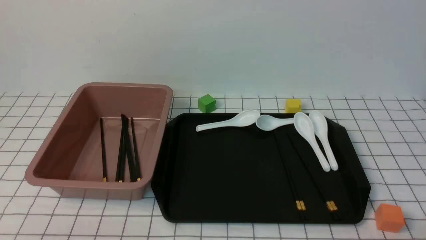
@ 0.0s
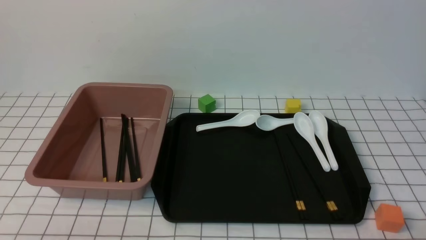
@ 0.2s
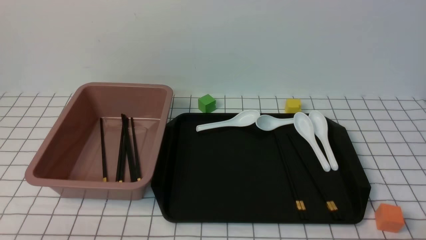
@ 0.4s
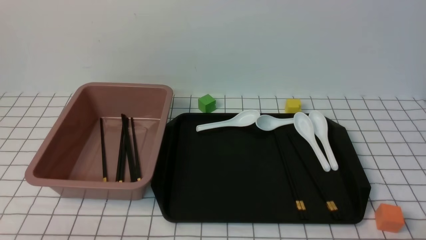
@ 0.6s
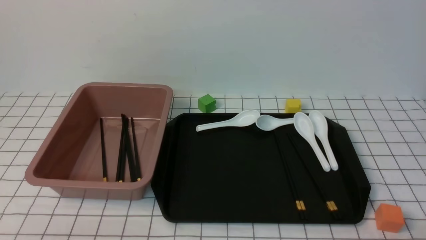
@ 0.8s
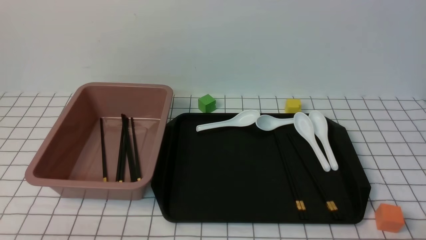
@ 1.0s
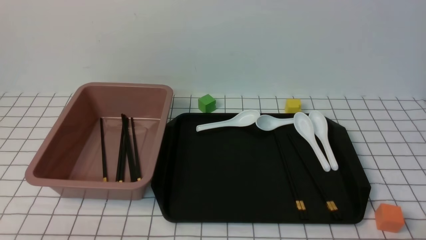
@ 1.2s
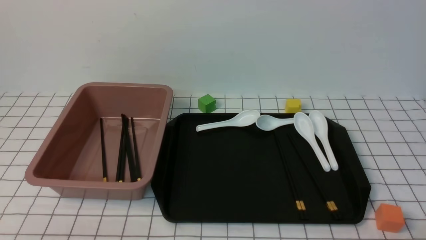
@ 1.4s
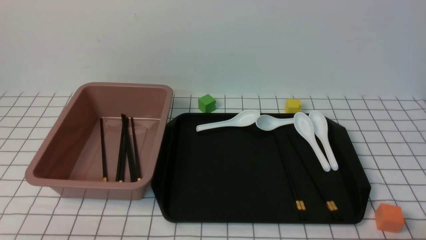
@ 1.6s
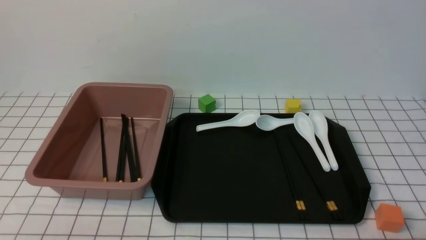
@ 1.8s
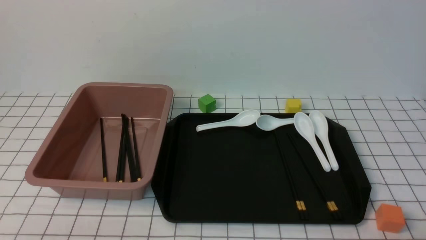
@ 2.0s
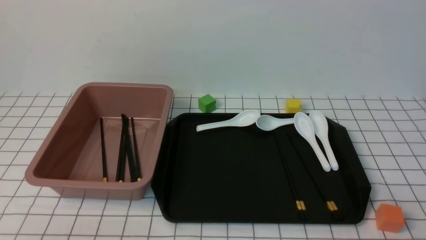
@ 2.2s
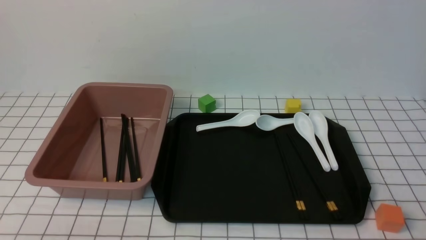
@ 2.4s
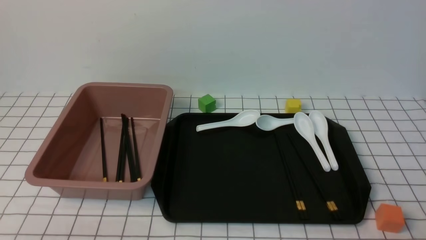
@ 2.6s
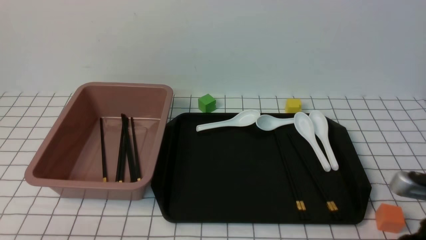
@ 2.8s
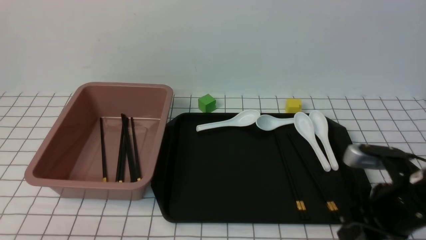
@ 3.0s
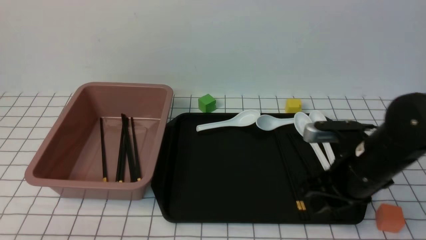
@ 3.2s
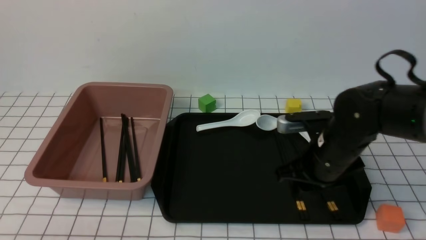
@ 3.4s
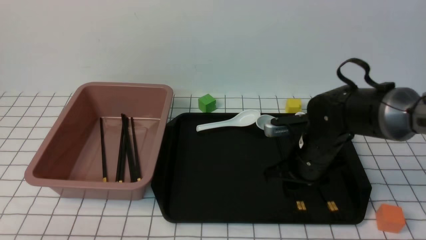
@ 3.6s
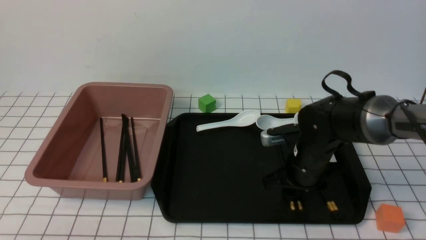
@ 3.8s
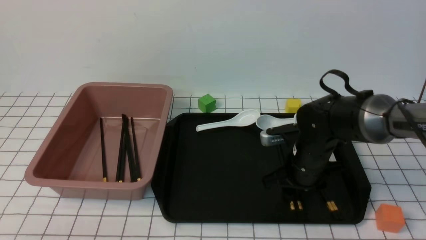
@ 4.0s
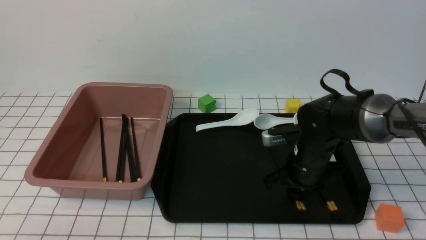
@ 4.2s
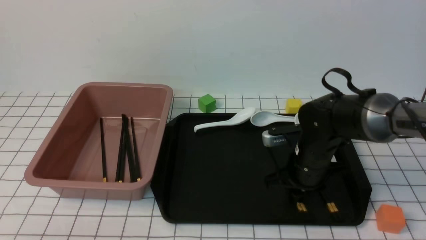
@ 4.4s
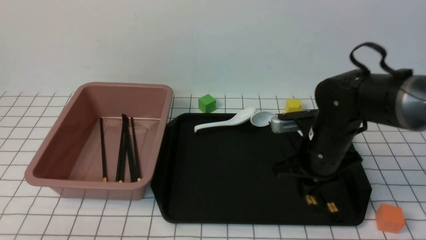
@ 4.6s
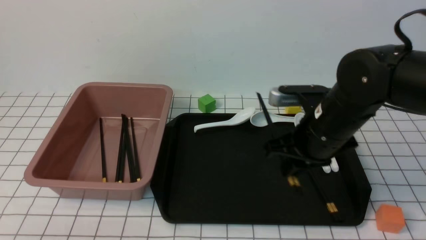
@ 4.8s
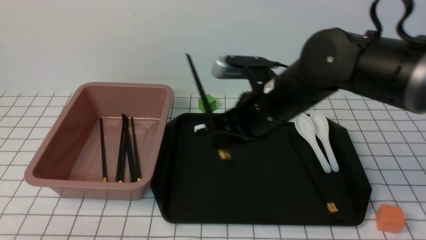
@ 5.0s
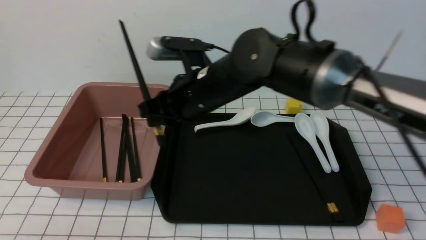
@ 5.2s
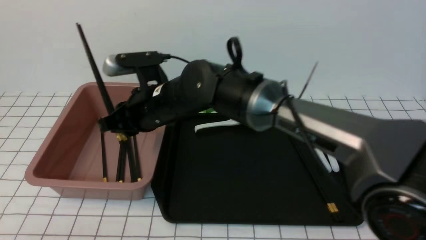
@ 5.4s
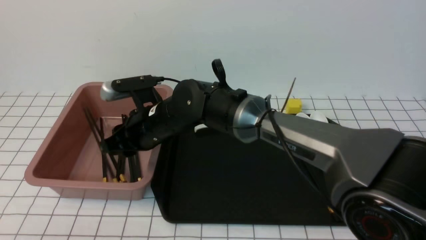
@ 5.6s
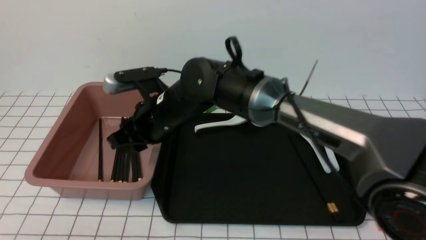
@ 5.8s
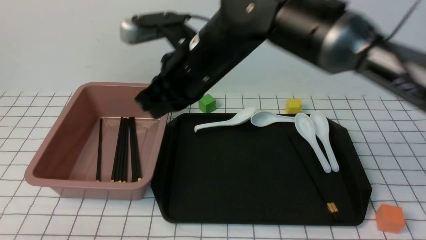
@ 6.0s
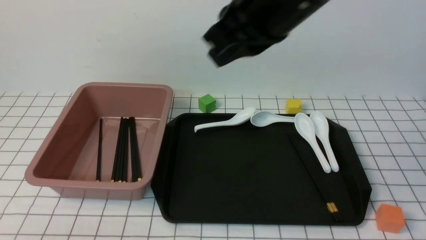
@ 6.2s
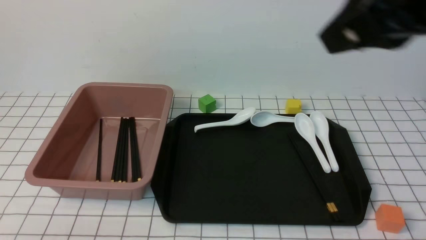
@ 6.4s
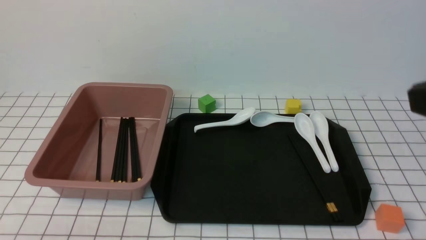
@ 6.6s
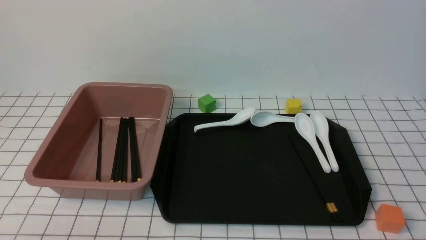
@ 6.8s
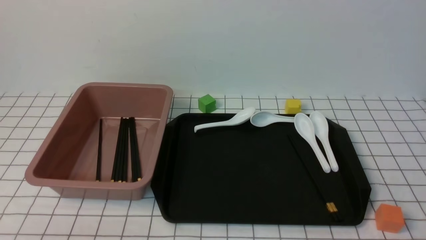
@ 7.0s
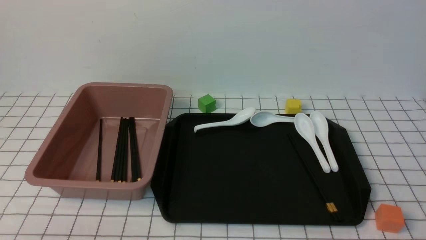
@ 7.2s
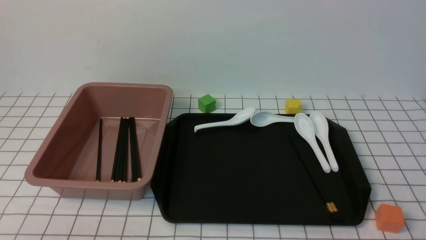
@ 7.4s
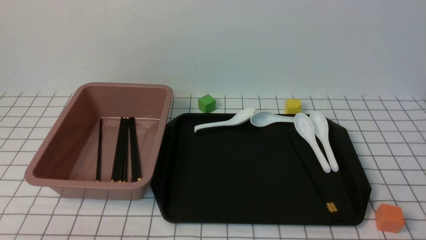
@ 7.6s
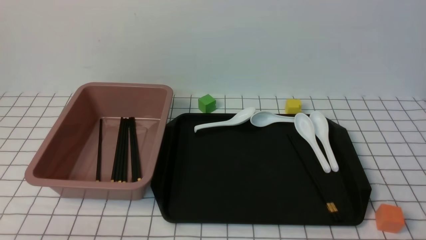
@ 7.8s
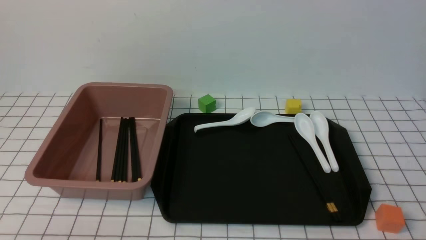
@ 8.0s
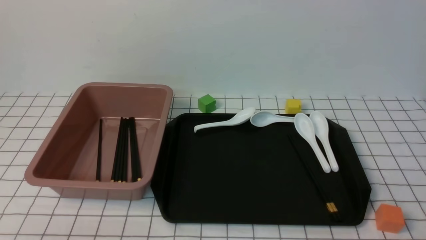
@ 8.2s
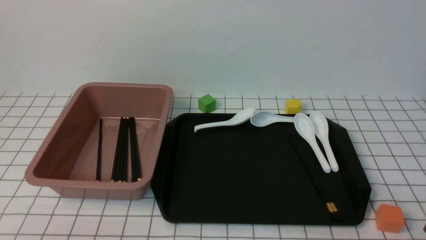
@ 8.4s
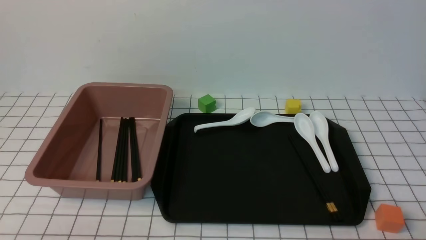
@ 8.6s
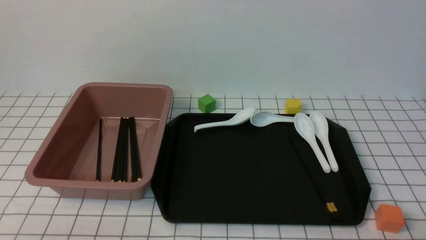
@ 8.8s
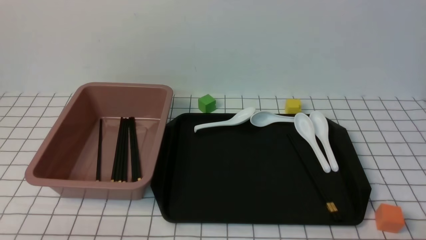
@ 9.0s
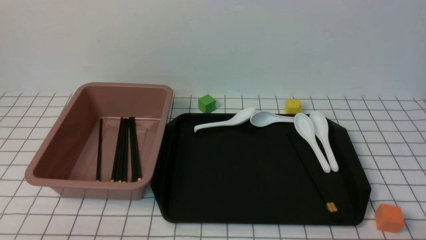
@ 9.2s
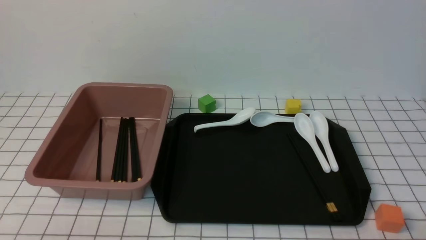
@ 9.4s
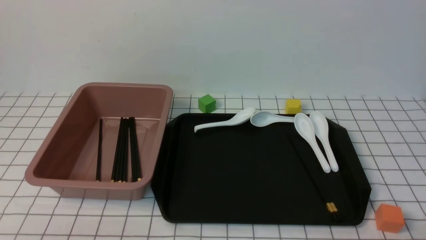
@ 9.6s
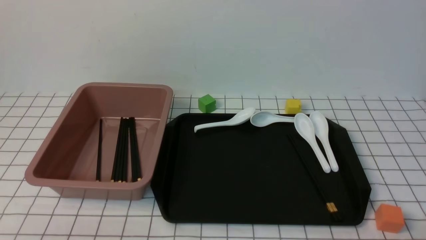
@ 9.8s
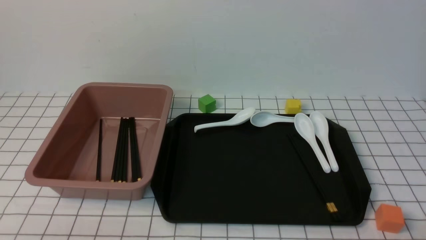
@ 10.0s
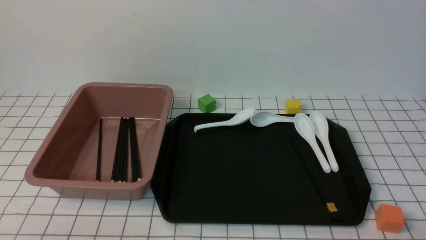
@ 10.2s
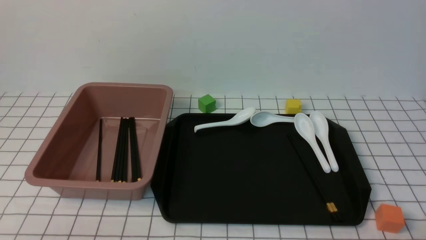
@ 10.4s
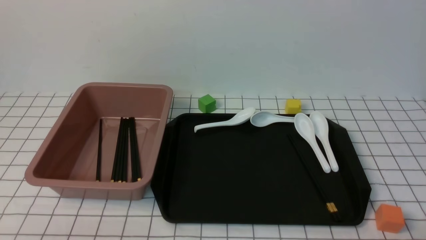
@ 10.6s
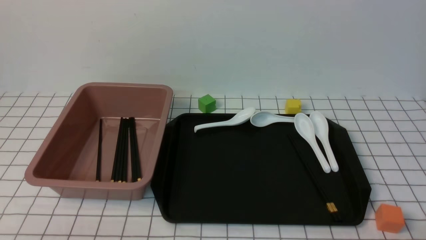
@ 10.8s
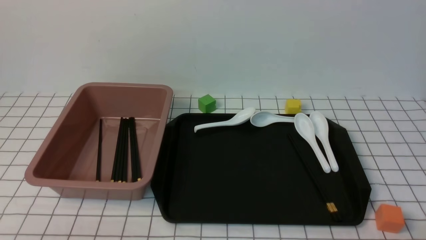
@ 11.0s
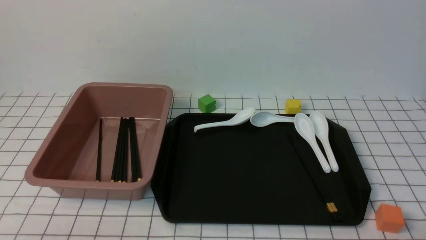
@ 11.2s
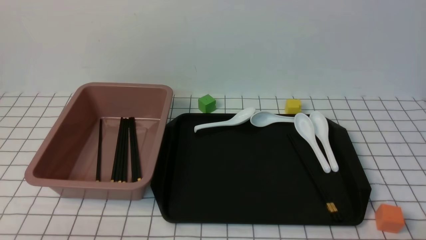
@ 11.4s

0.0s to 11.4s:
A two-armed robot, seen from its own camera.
Step, 0.0s to 4.6s: use the right arm to grab a pair of chopsticks.
Step, 4.8s to 6.0s: use the right arm to put the chopsticks into the lunch box.
1.4s to 2.8s: The right gripper moves forward and upward, some 15 cm.
2.8s to 4.2s: The right gripper travels forward, to the left and downward by approximately 20 cm, and opens, then closes once more.
4.2s to 5.6s: The right gripper goes roughly 25 cm to the left and upward.
5.6s to 7.2s: The right gripper shifts approximately 50 cm to the right and backward, and closes.
10.0s to 11.4s: Both grippers stay put.

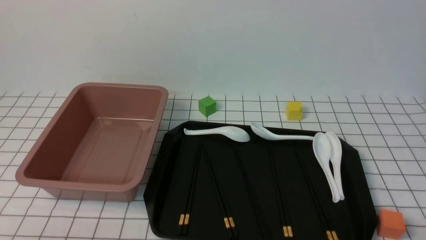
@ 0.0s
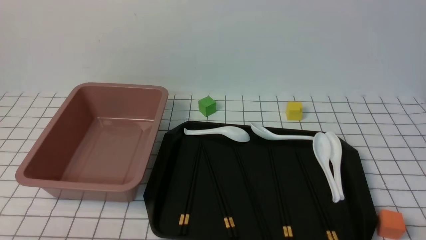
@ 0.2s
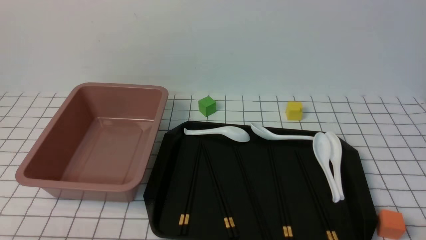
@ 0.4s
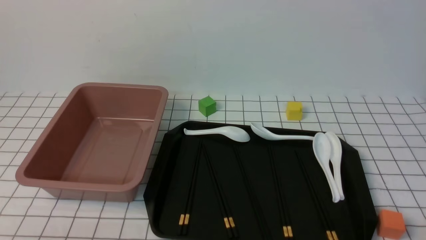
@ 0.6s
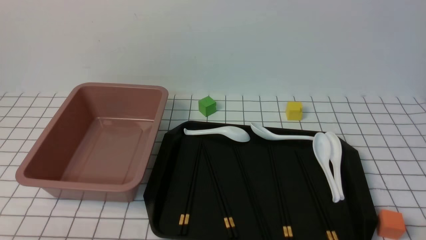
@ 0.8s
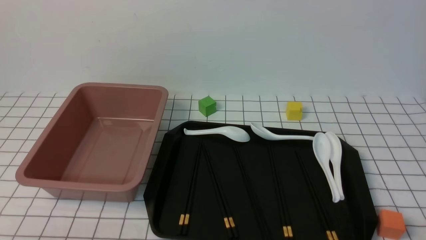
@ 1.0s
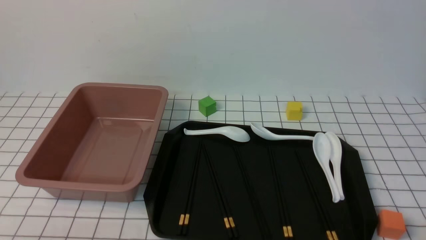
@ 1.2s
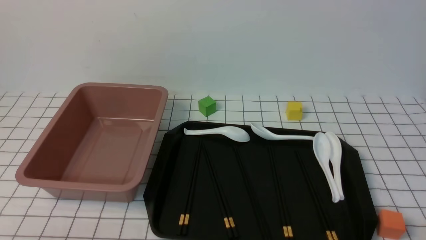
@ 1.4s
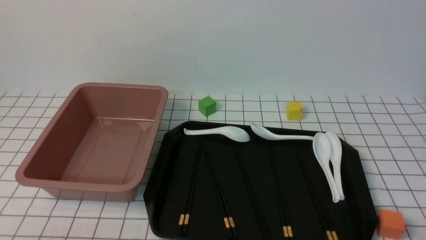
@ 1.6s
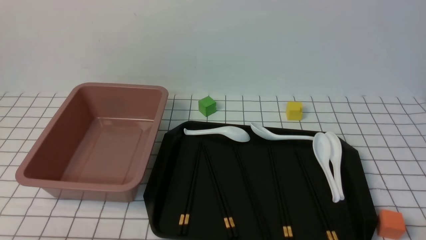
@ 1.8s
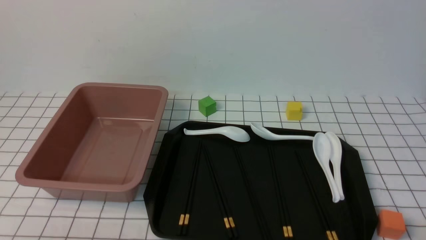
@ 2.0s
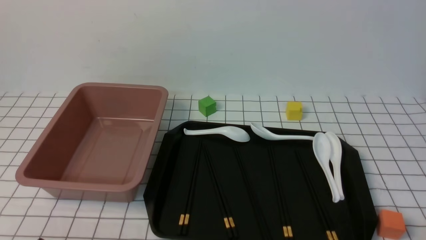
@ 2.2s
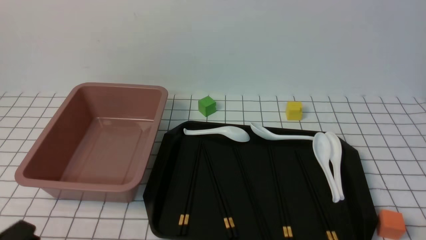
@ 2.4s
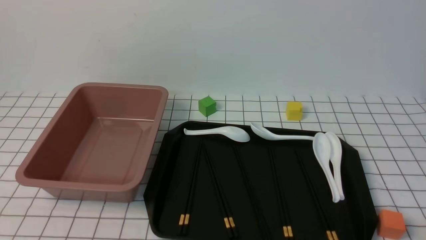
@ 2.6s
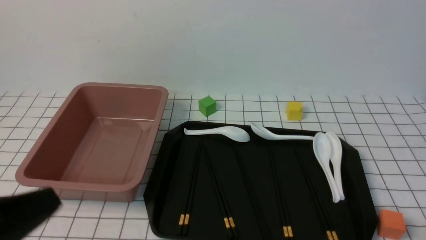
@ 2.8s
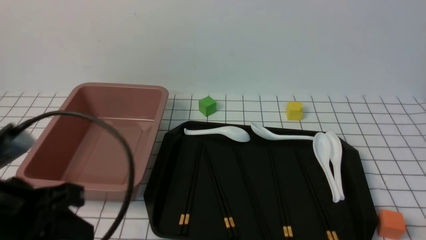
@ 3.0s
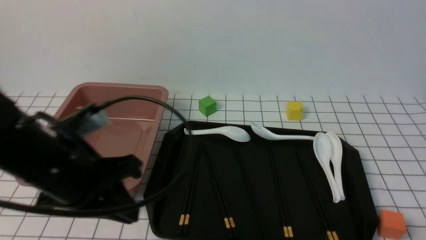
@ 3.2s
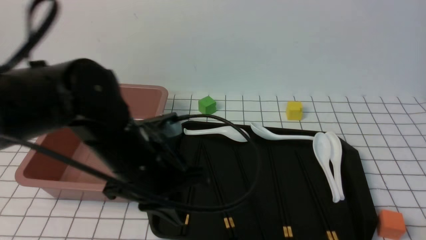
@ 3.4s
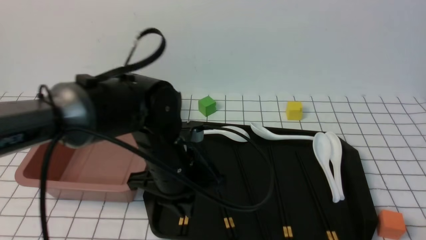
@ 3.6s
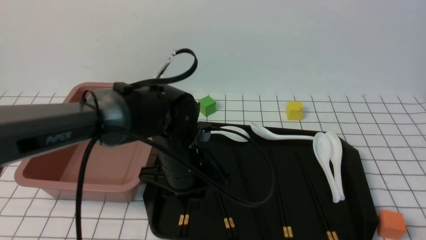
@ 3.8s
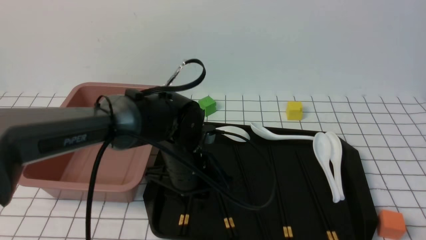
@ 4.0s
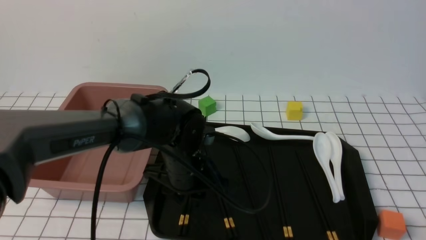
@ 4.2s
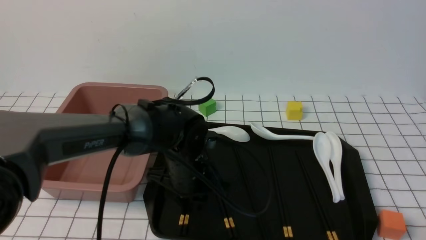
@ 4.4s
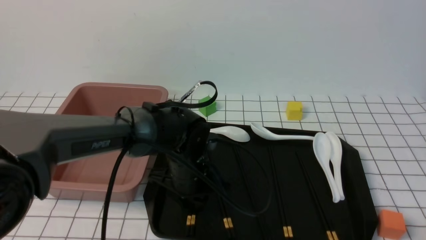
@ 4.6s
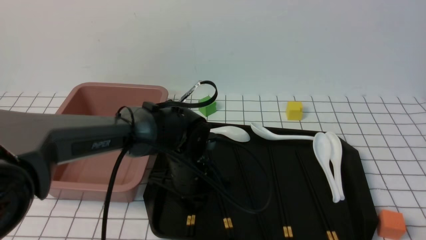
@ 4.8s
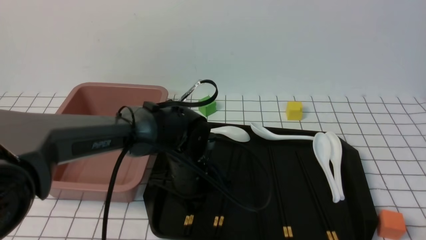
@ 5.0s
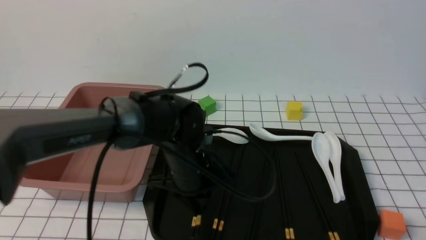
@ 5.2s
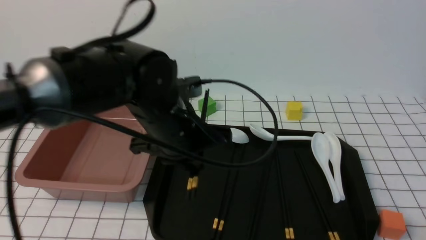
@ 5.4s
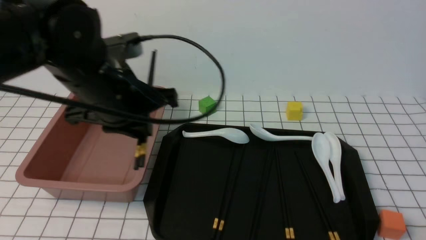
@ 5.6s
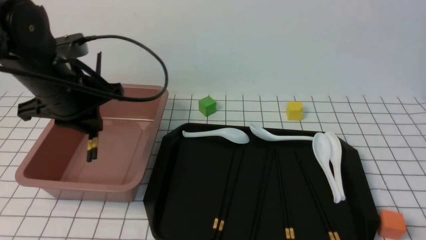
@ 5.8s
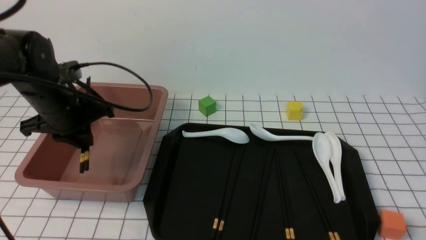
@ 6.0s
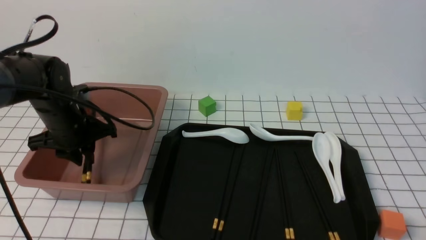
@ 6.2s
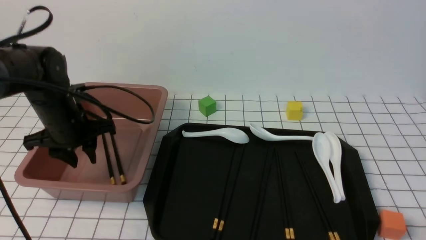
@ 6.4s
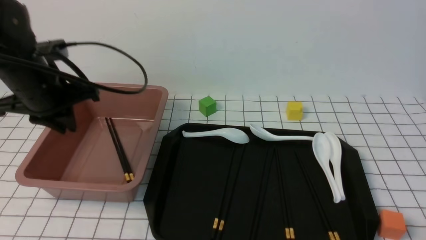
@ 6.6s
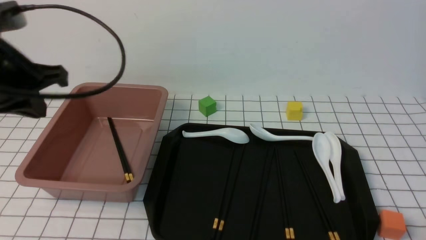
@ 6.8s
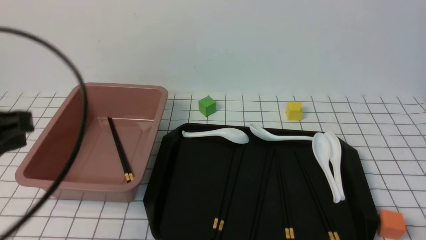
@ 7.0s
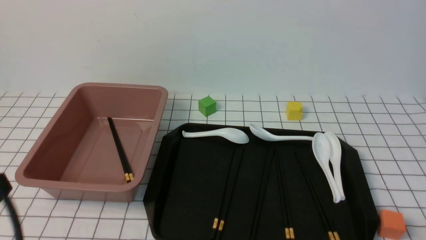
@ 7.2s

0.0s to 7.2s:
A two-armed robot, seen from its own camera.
Step, 0.0s to 5.4s: use the left arm to grab a pair of chopsticks.
Step, 5.6s to 6.6s: use the left arm to put the chopsticks into the lunch box.
0.0s to 1.4s: Neither gripper changes place.
1.4s to 2.8s: The left gripper is displaced upward by approximately 15 cm, and closes its fingers.
2.8s to 4.4s: The left gripper moves forward, to the right and downward, about 35 cm, and opens.
4.4s to 5.8s: The left gripper goes roughly 20 cm to the left and upward, and closes.
5.8s to 7.2s: The left gripper heads backward, covering approximately 25 cm, and closes its fingers.
